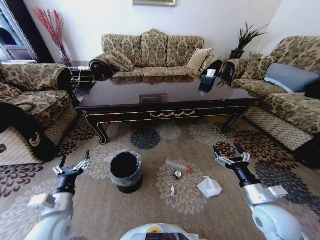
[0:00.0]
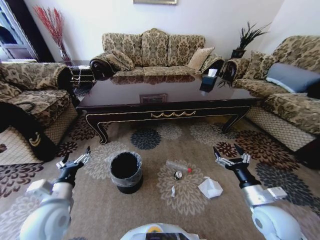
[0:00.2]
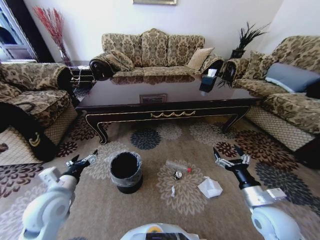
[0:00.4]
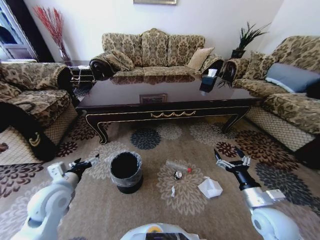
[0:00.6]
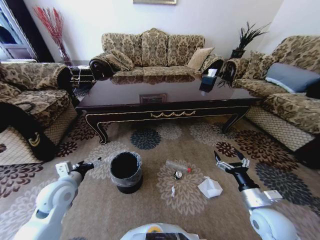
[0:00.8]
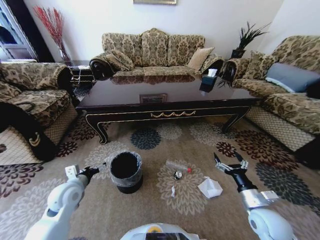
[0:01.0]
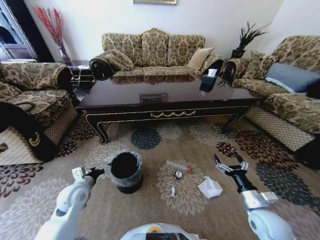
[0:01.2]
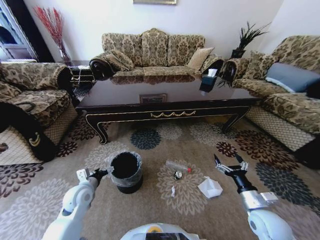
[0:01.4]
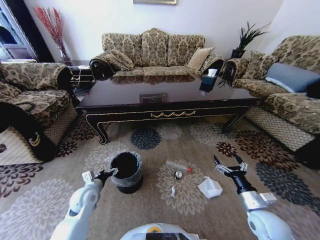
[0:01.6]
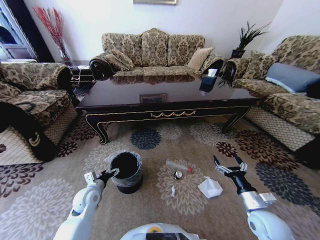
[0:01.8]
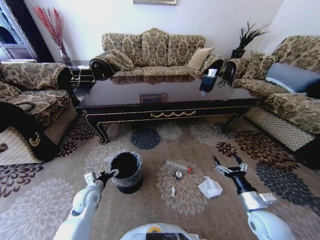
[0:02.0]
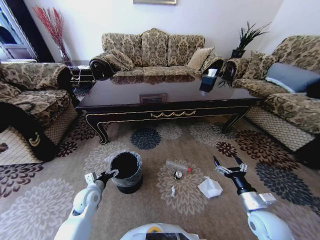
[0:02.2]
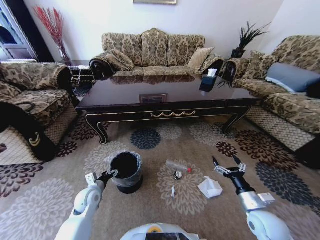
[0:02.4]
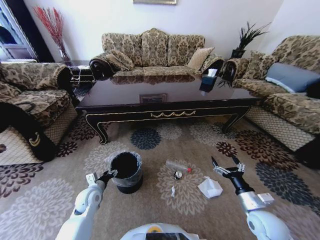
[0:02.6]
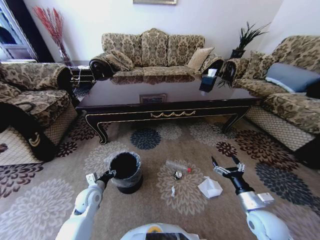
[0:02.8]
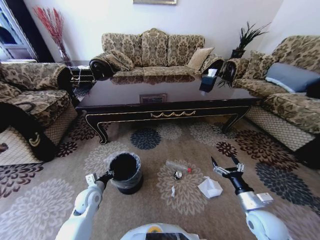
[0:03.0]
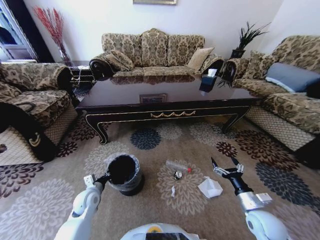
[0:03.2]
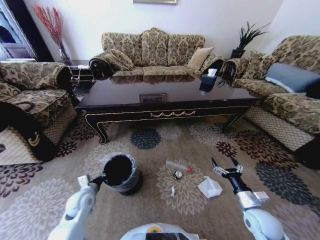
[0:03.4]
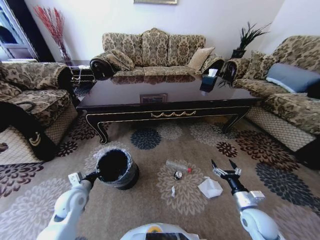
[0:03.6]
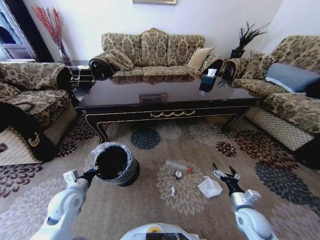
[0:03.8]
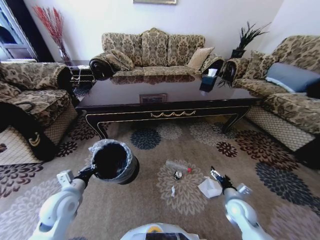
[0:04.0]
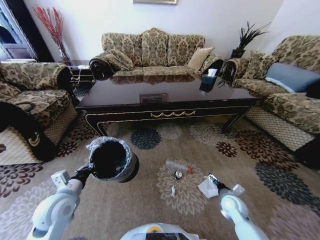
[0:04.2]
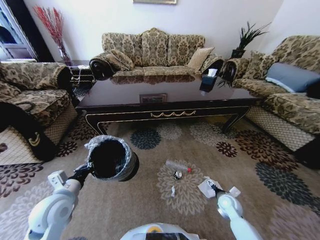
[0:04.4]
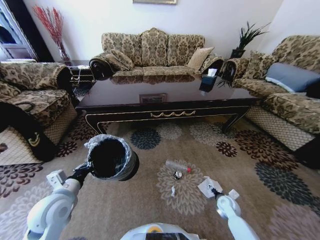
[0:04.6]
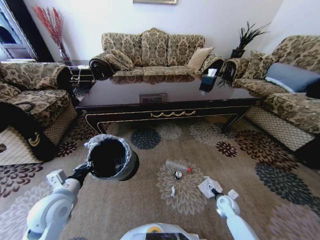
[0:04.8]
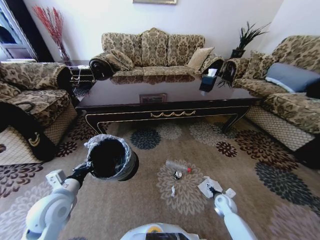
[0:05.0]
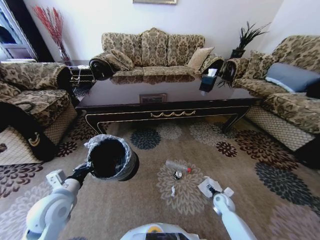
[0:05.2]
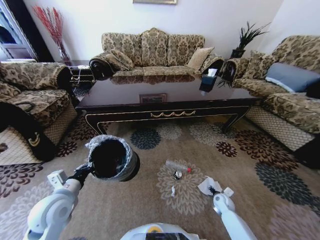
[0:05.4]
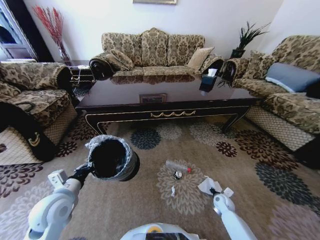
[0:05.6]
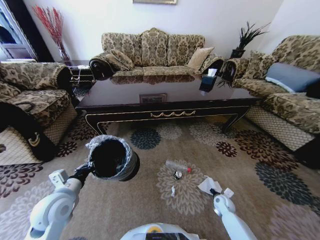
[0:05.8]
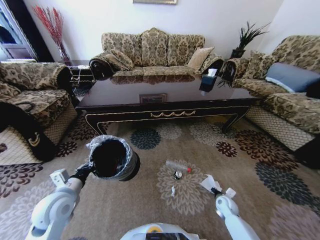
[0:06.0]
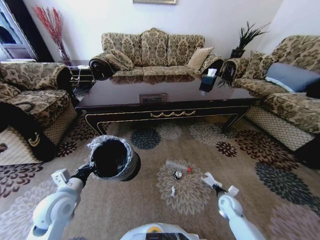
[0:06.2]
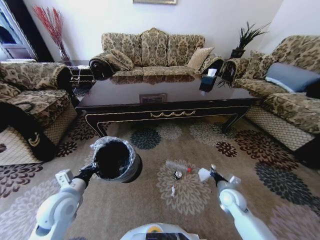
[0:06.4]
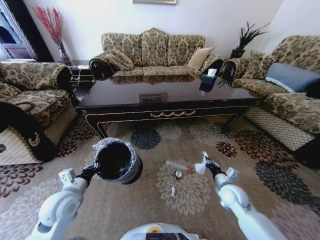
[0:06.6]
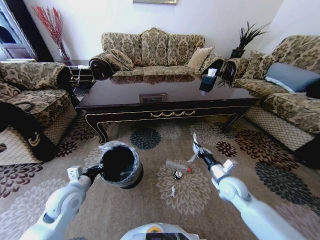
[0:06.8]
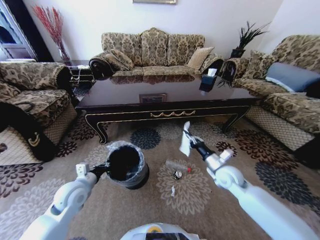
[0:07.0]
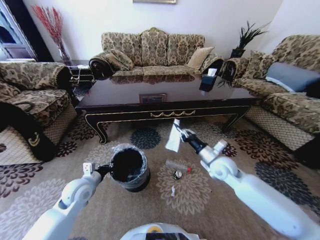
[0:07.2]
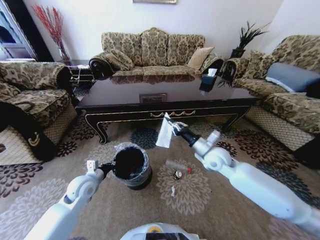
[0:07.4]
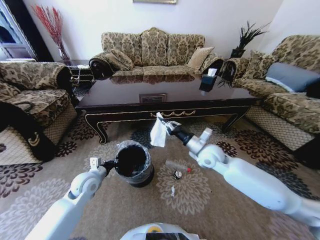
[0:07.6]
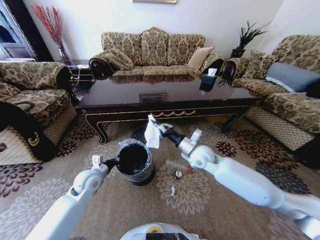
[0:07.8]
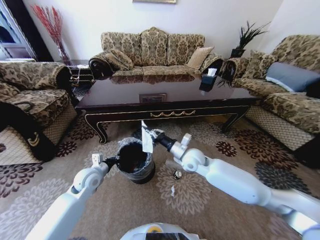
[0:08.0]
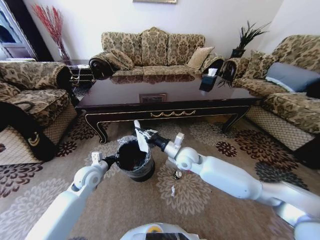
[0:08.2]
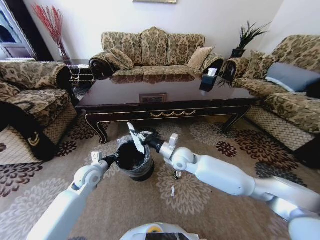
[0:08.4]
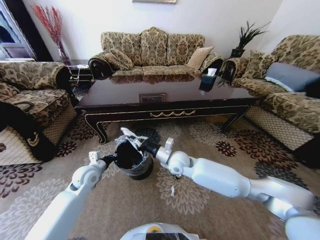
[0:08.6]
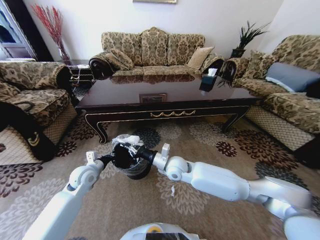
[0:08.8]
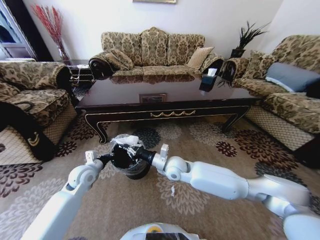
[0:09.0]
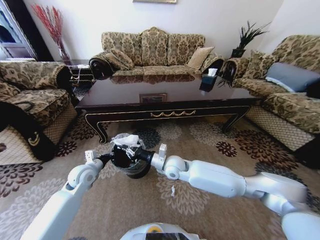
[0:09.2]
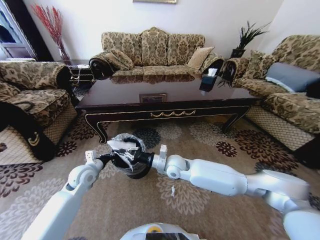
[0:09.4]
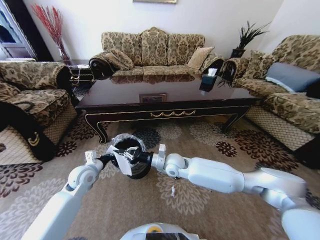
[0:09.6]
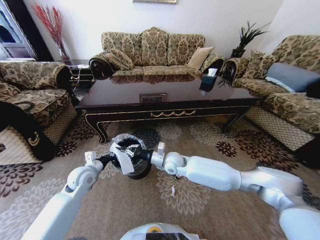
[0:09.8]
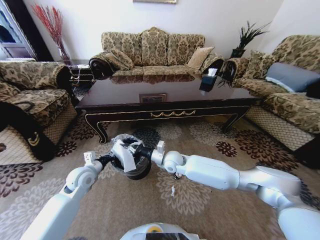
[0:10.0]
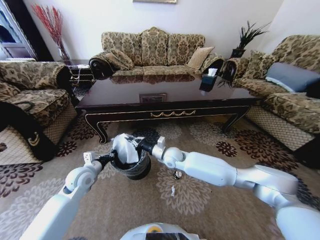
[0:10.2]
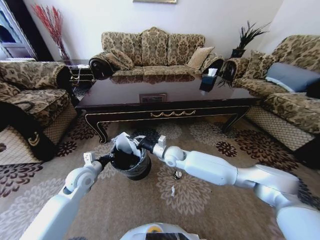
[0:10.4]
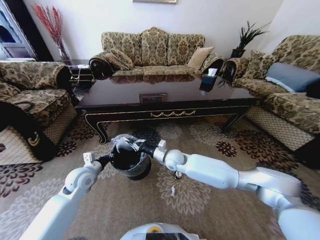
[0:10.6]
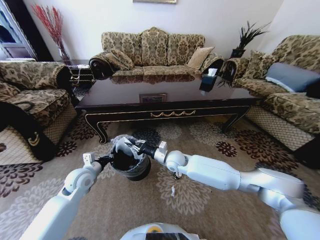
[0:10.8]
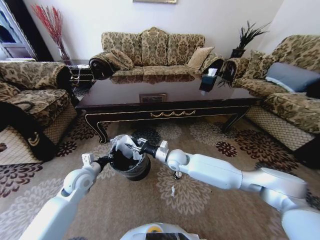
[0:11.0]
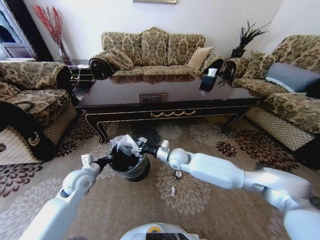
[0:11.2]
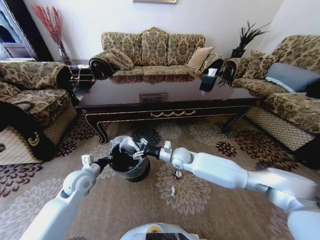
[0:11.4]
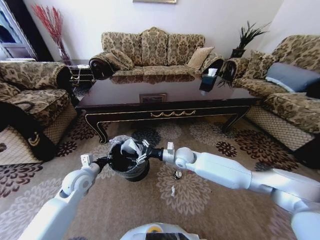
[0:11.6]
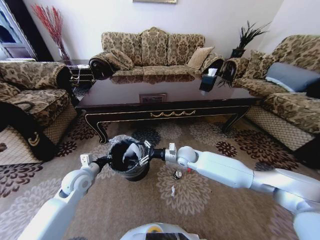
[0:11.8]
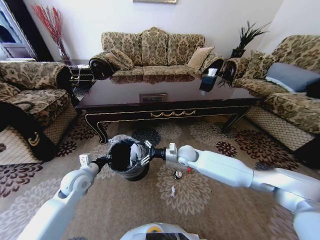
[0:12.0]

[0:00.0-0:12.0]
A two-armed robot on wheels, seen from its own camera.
Task of the whole recording: Move to the front of the table and pick up the trash from the floor, then place it into the trash bin.
0:00.0 to 0:01.6: The right gripper goes approximately 5 cm downward. The left gripper heads forward and downward, covering roughly 15 cm.
0:01.6 to 0:03.0: The left gripper closes up.
0:03.0 to 0:04.4: The right gripper goes about 15 cm downward and forward, while the left gripper goes about 15 cm upward and backward.
0:04.4 to 0:06.0: The right gripper travels downward by approximately 5 cm, and closes up.
0:06.0 to 0:07.6: The right gripper travels upward and to the left by roughly 35 cm; the left gripper is displaced forward by about 10 cm.
0:07.6 to 0:09.0: The right gripper goes about 15 cm to the left and downward.
0:09.0 to 0:10.4: The right gripper is displaced forward by roughly 5 cm.
0:10.4 to 0:12.0: The right gripper shifts roughly 5 cm to the right, and opens up.

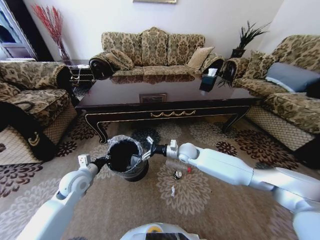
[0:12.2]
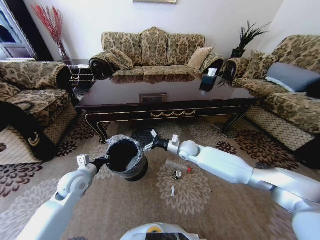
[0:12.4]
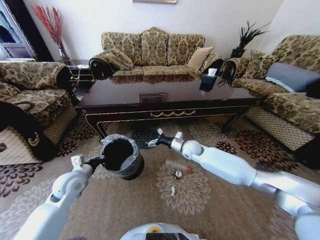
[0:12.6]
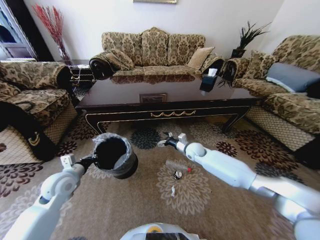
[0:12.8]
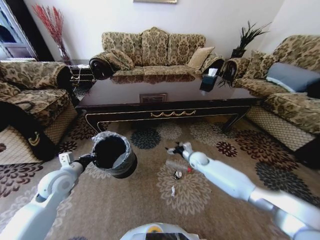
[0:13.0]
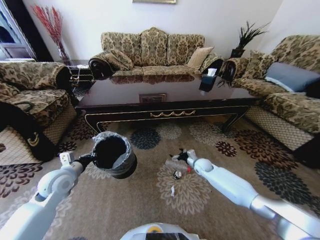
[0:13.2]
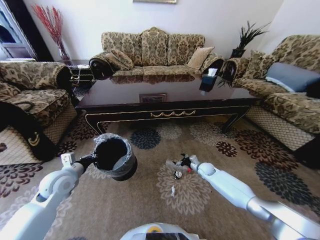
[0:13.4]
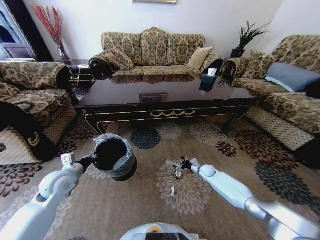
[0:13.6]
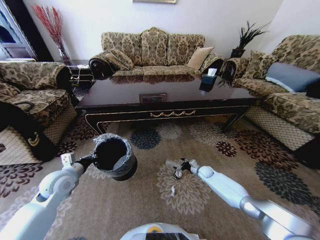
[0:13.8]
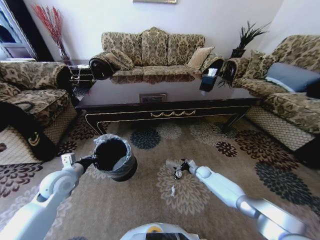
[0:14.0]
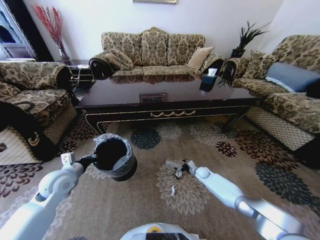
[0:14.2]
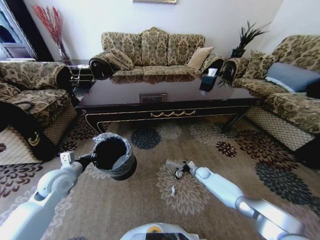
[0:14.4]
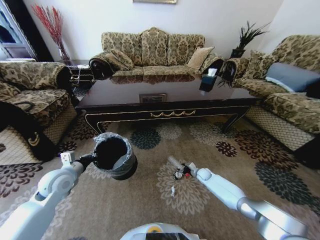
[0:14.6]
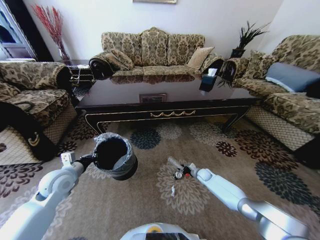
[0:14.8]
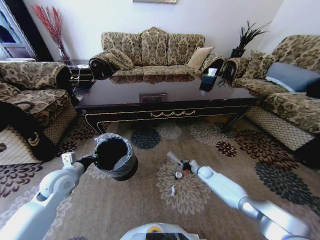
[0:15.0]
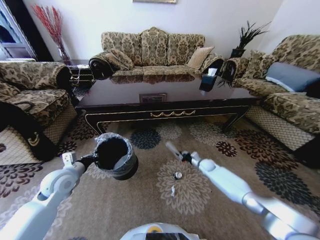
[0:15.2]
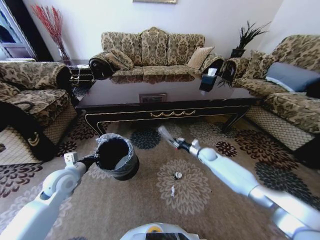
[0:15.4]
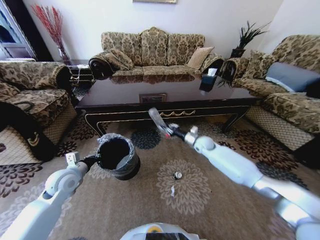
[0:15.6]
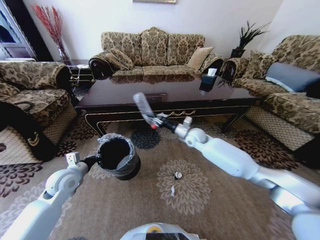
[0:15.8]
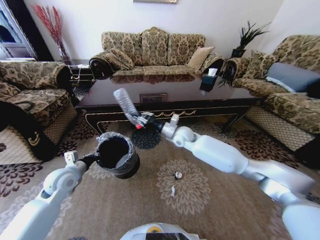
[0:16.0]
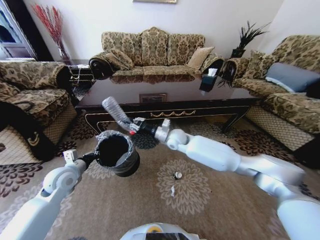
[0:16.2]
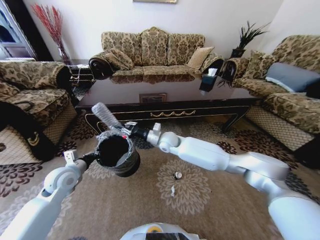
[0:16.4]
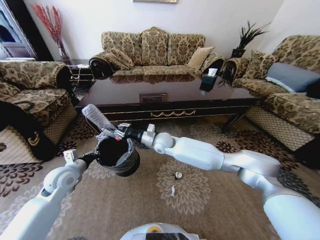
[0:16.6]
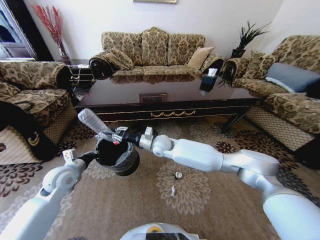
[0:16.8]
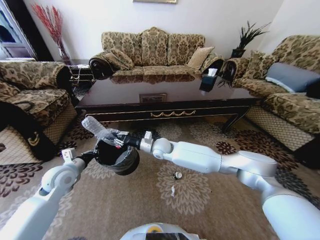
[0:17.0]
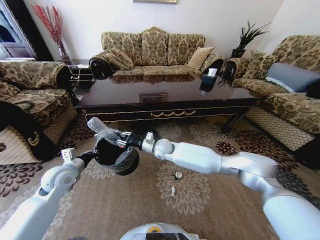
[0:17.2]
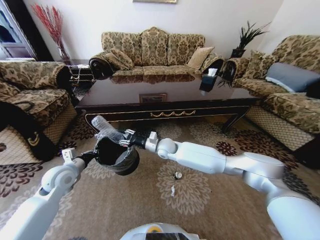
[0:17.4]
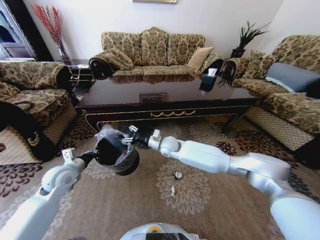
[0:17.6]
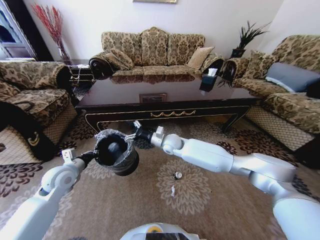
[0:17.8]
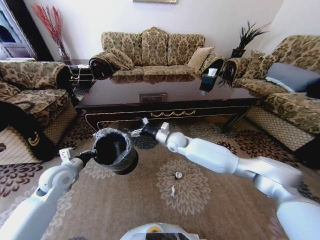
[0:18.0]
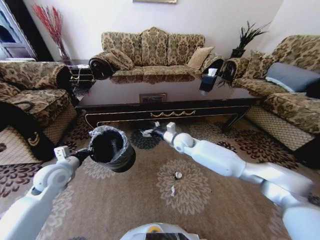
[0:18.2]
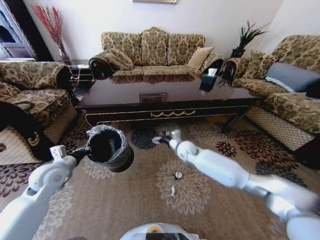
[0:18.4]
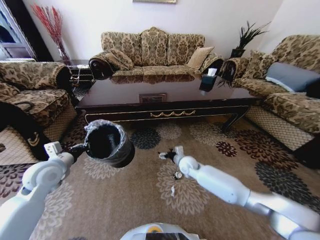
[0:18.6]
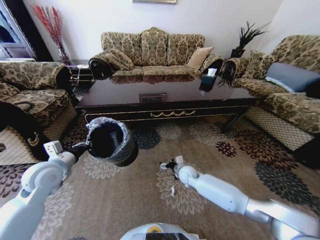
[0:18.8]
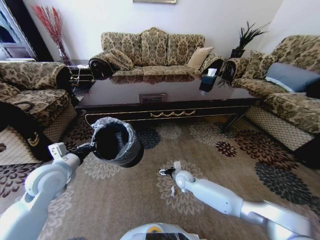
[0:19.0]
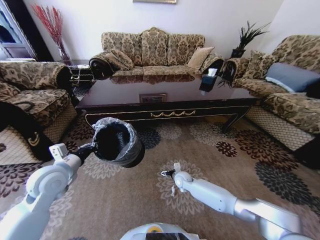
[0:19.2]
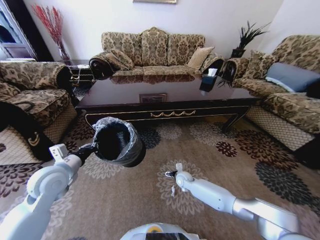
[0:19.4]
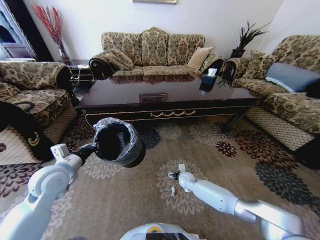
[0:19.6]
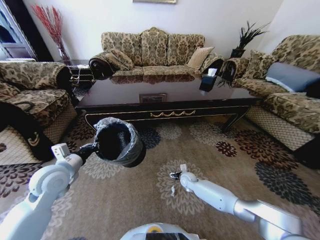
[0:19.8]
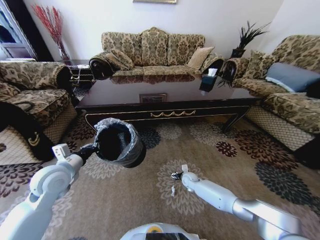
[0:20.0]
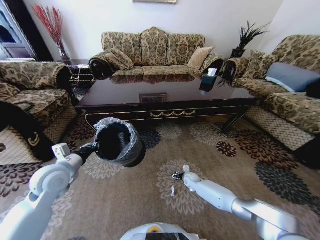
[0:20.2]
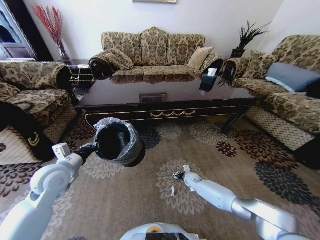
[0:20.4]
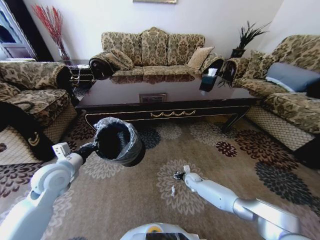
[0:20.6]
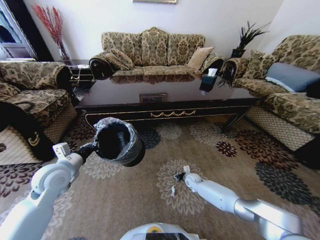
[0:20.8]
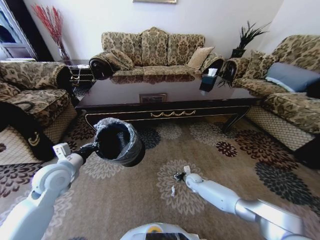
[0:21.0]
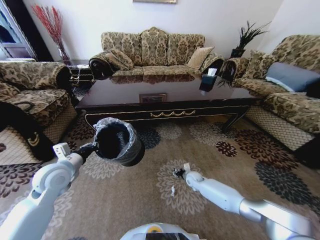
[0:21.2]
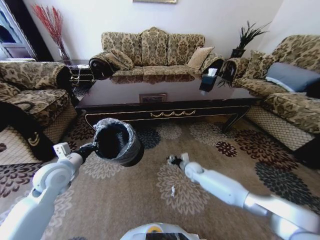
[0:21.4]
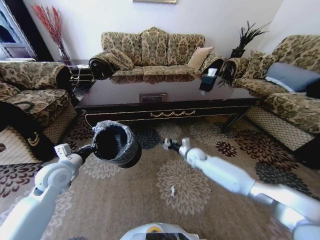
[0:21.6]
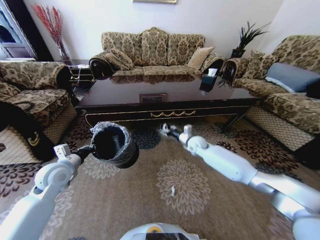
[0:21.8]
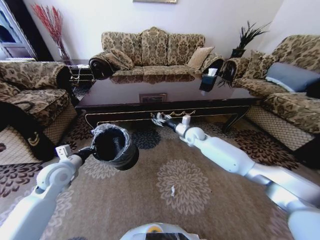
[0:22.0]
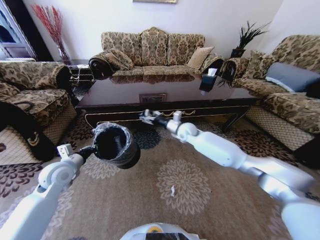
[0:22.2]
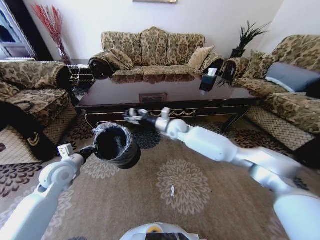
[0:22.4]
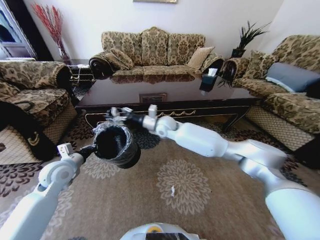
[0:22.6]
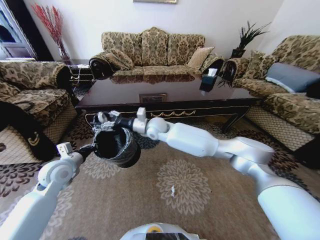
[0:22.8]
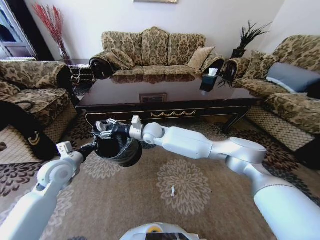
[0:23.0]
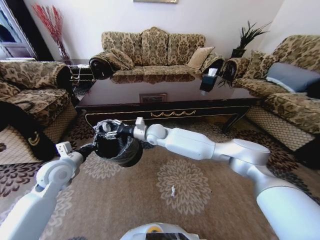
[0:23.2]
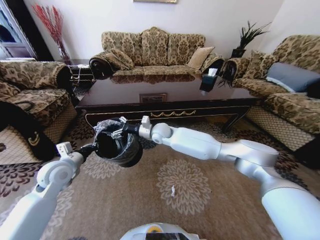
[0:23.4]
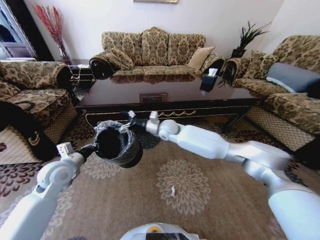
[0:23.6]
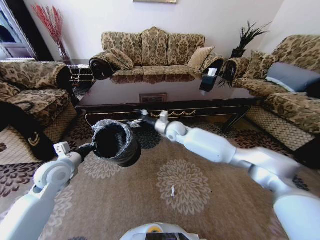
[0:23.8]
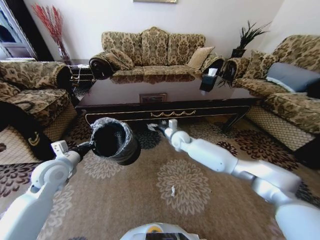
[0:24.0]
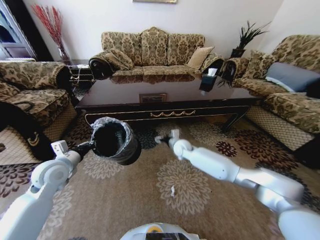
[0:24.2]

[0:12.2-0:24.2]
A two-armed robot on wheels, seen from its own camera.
Task of the whole recording: Move to the front of the table and pick up the trash from the floor, then place it into the trash bin.
0:12.2 to 0:13.8: The right gripper travels downward and to the right by roughly 30 cm; the left gripper shifts by about 5 cm.
0:13.8 to 0:15.2: The right gripper ends up about 5 cm from where it was, and closes up.
0:15.2 to 0:16.6: The right gripper is displaced to the left and upward by roughly 40 cm.
0:16.6 to 0:18.2: The right gripper shifts about 10 cm to the right, and opens its fingers.
0:18.2 to 0:19.8: The right gripper heads downward, covering roughly 25 cm; the left gripper shifts by approximately 5 cm.
0:19.8 to 0:21.2: The right gripper closes up.
0:21.2 to 0:22.6: The right gripper travels upward and to the left by roughly 40 cm.
0:22.6 to 0:24.2: The right gripper moves downward and to the right, about 20 cm, and opens up.
